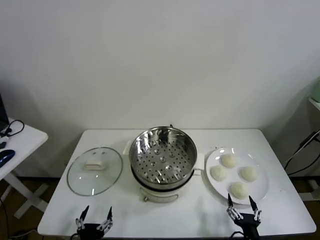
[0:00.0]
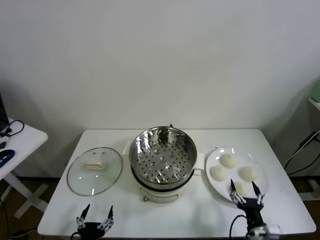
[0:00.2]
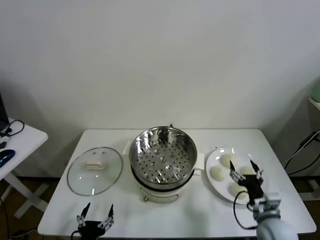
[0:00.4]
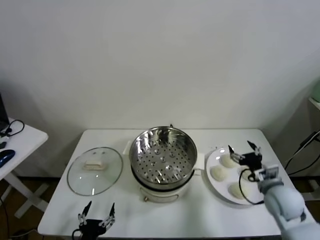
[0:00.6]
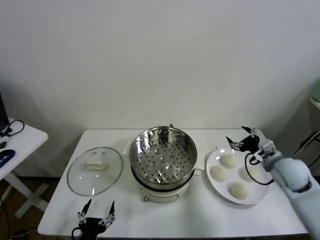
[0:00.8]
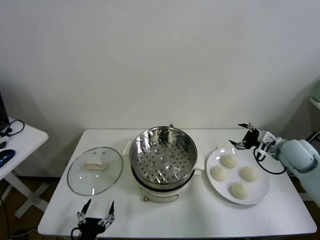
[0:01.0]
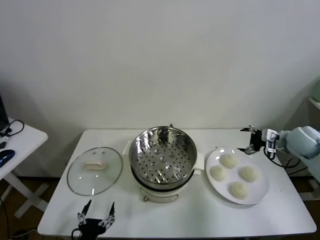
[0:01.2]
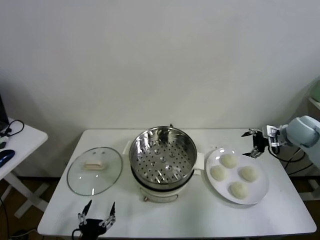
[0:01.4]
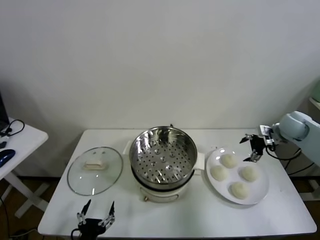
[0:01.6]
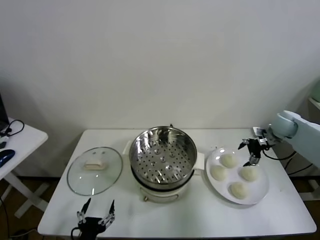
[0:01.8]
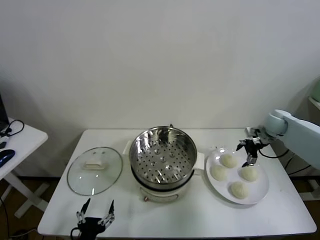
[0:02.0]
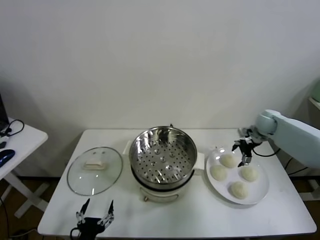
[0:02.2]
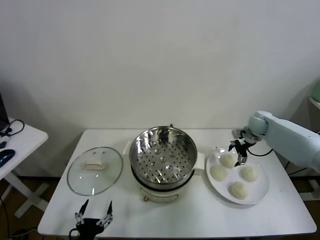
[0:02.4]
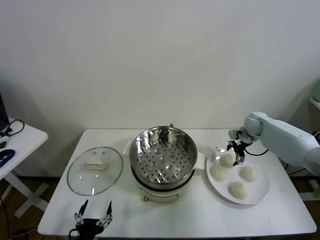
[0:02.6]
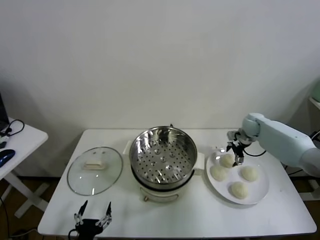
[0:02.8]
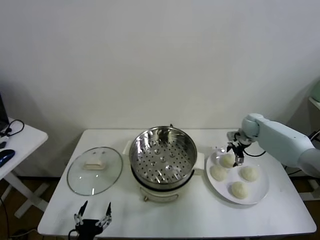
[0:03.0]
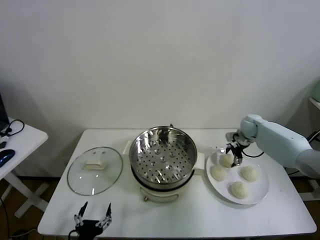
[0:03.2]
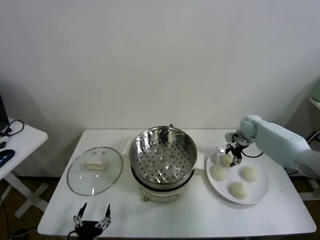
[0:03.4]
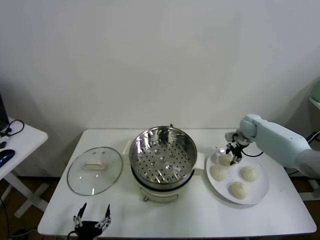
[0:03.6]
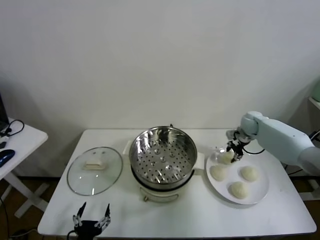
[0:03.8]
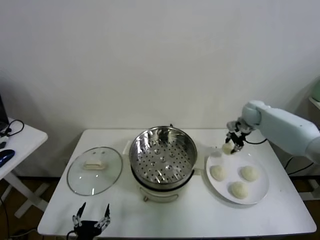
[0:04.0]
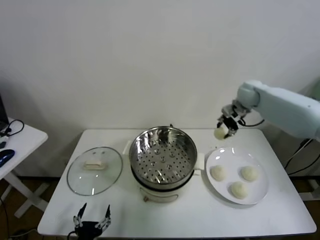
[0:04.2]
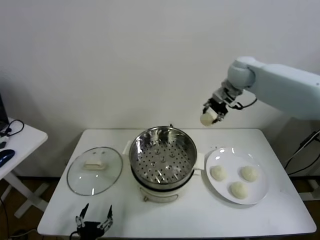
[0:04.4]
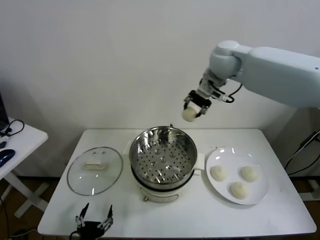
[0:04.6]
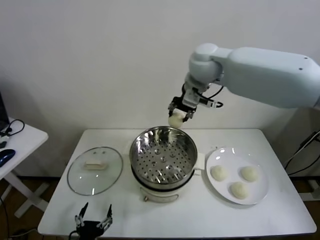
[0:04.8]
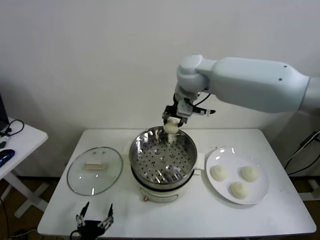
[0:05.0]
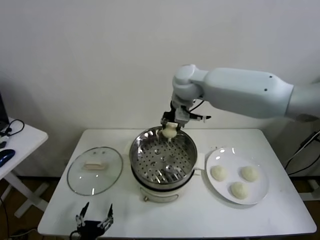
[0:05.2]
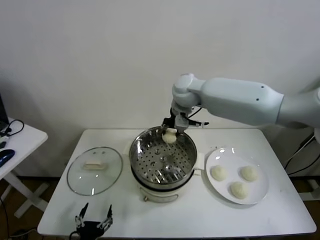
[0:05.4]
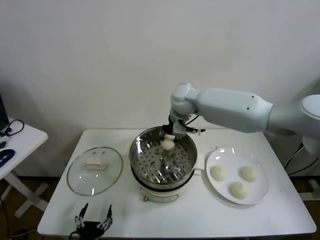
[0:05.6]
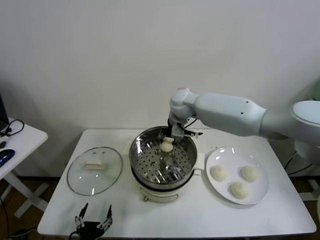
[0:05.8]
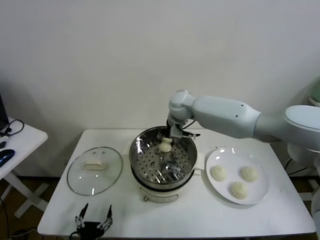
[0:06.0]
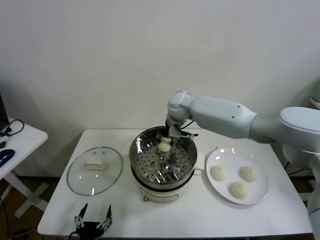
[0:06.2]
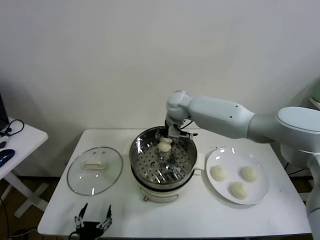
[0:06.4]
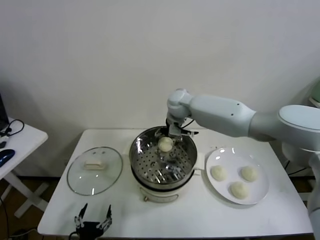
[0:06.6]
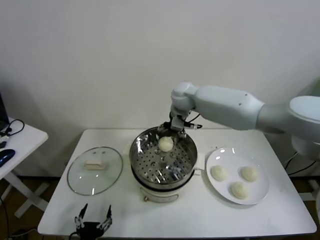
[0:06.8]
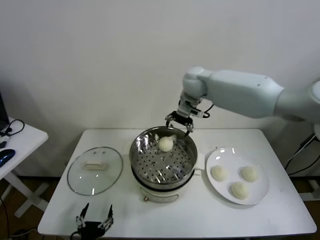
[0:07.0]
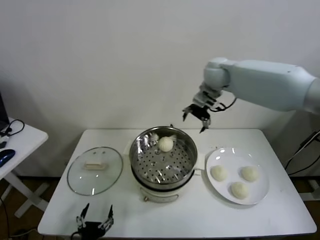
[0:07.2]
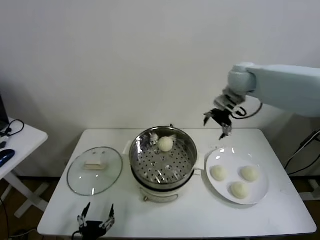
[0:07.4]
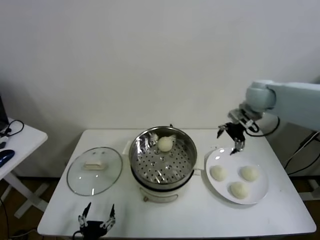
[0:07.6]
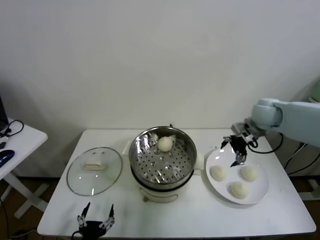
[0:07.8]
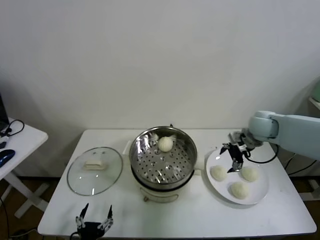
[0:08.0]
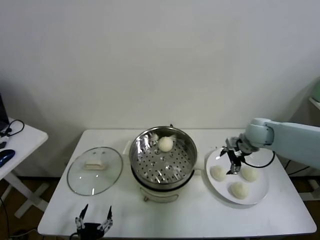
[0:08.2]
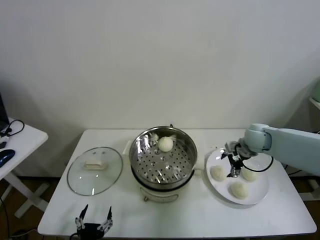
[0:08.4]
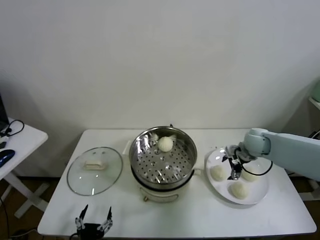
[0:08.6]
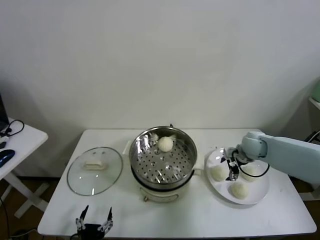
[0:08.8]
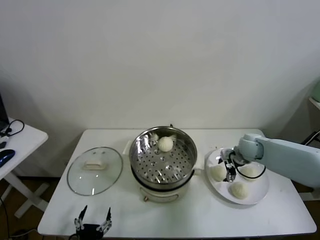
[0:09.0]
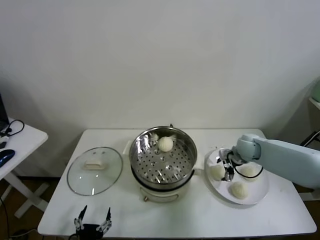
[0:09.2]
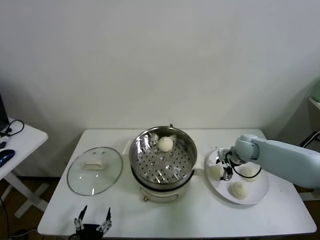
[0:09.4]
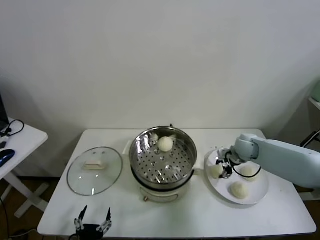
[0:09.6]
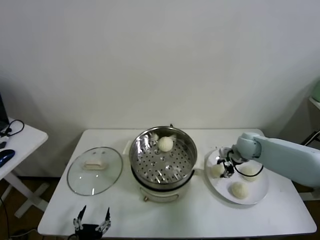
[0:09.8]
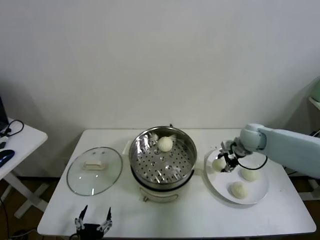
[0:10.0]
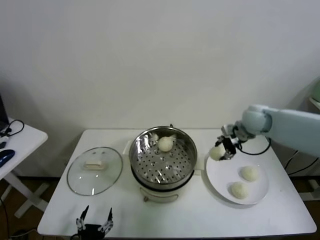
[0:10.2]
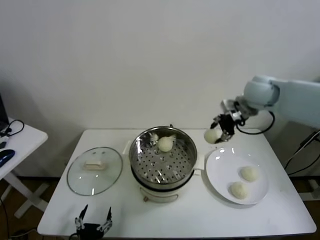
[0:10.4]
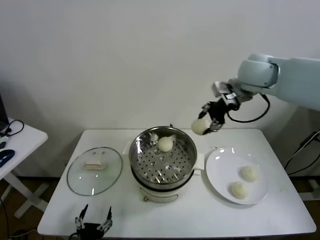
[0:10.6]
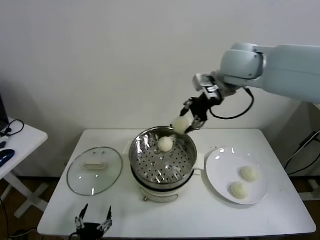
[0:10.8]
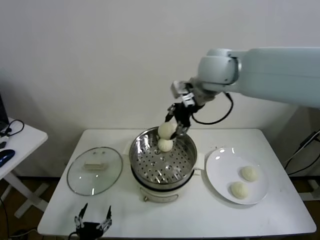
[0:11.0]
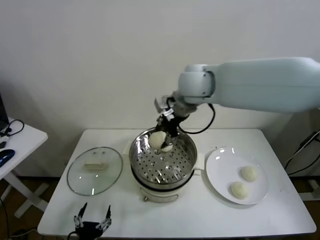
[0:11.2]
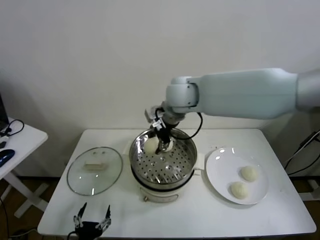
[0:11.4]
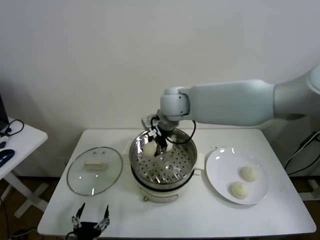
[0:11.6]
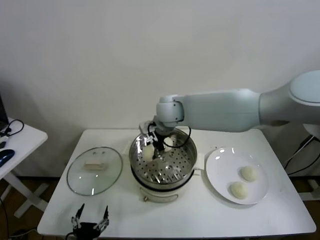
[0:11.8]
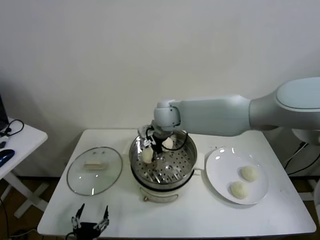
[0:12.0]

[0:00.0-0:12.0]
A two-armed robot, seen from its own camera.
Task of the whole recording: take steamed baozi put them in steamer.
Step, 0:00.0 to 0:03.4: Grasp the baozi in the plate with right gripper.
Step, 0:03.6 to 0:06.8: Place the baozi on the steamer with right gripper.
Step, 0:07.0 to 0:09.6: Grasp the baozi in the plate with right gripper.
0:01.6 to 0:03.0: The right gripper is displaced downward, forward and to the left by roughly 15 cm.
0:03.0 to 0:04.4: The right gripper heads upward and to the left, covering some 35 cm, and closes.
0:04.4 to 0:06.0: The right gripper travels downward and to the left by some 20 cm.
0:06.0 to 0:07.6: The right gripper is displaced to the right by some 25 cm, and opens.
0:07.6 to 0:09.0: The right gripper heads downward, covering some 20 cm.
0:09.0 to 0:10.4: The right gripper travels upward by about 25 cm, and closes.
0:10.4 to 0:12.0: The right gripper heads to the left, covering roughly 25 cm.

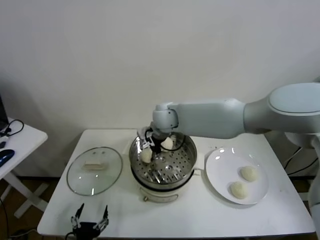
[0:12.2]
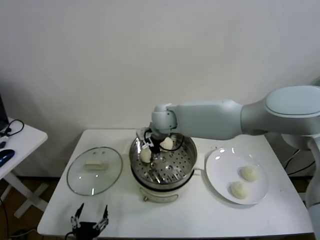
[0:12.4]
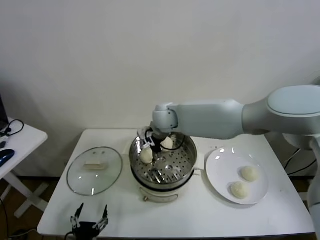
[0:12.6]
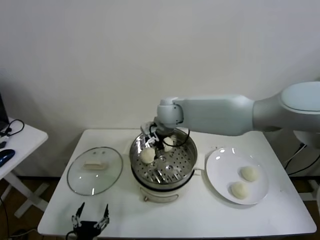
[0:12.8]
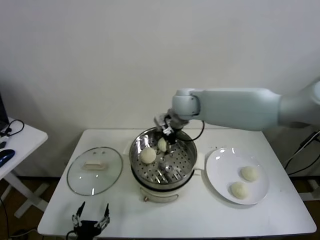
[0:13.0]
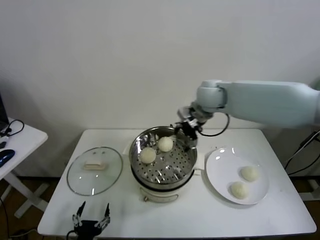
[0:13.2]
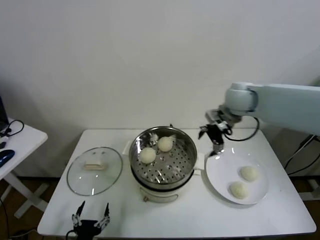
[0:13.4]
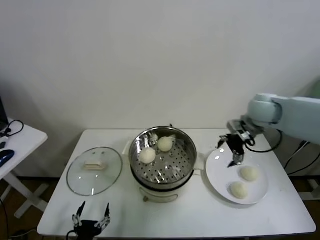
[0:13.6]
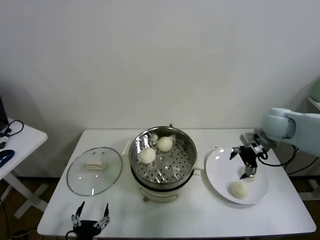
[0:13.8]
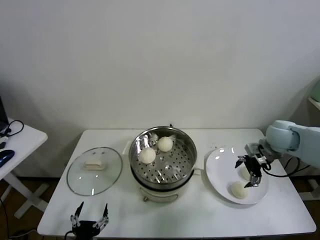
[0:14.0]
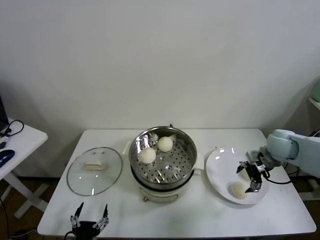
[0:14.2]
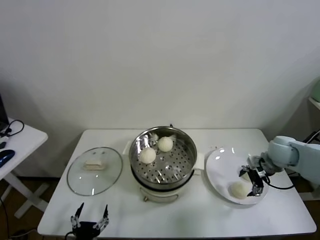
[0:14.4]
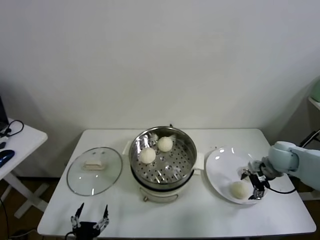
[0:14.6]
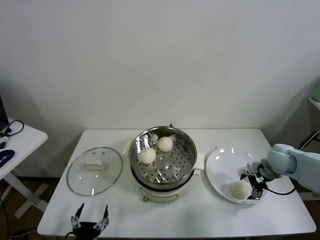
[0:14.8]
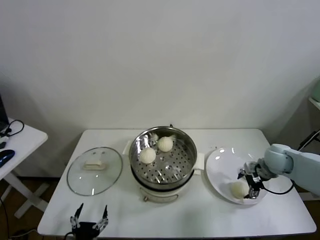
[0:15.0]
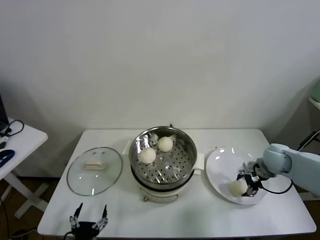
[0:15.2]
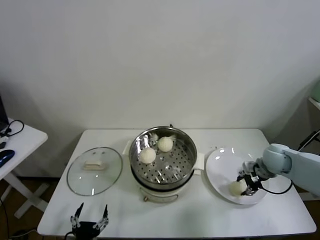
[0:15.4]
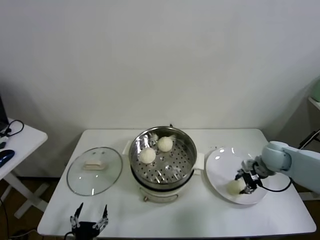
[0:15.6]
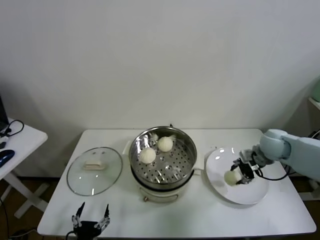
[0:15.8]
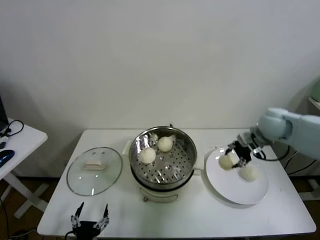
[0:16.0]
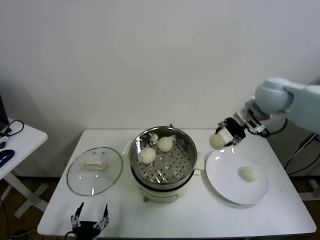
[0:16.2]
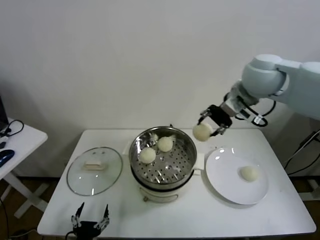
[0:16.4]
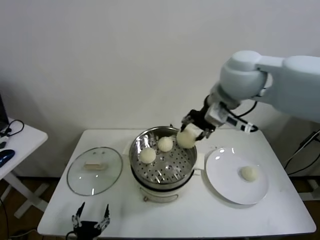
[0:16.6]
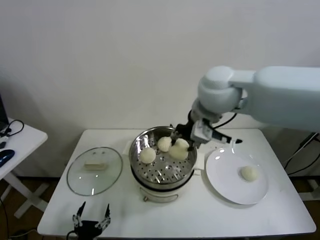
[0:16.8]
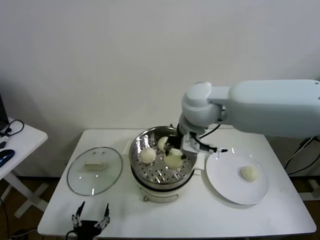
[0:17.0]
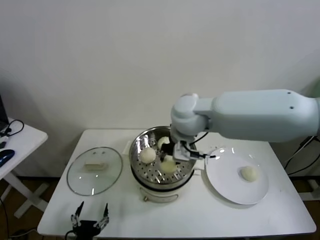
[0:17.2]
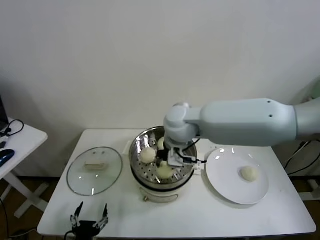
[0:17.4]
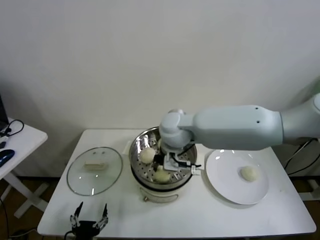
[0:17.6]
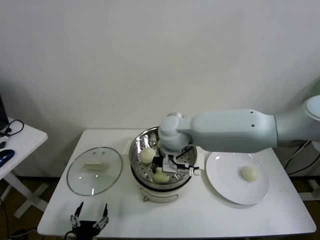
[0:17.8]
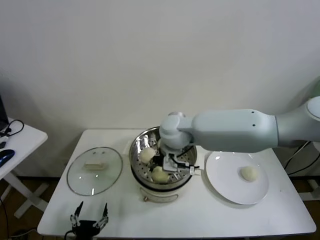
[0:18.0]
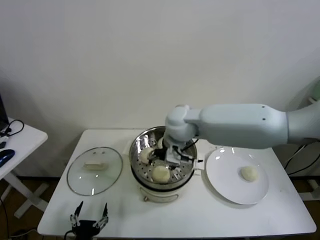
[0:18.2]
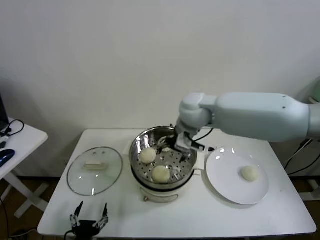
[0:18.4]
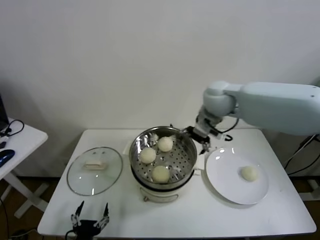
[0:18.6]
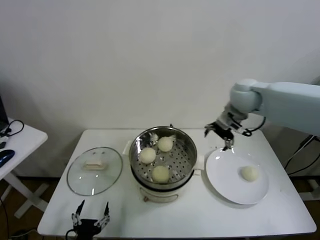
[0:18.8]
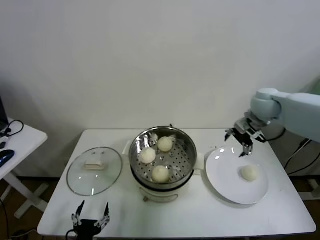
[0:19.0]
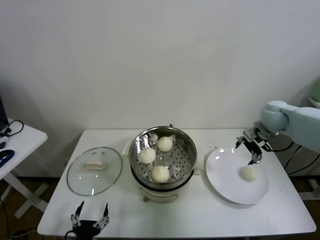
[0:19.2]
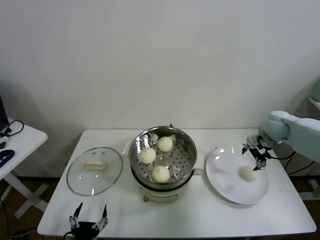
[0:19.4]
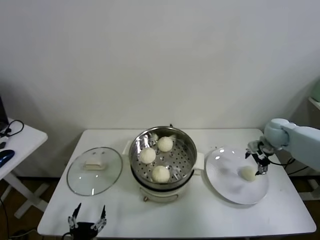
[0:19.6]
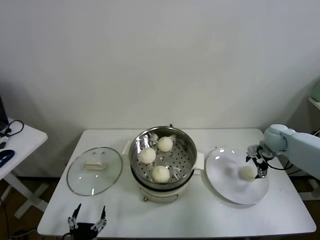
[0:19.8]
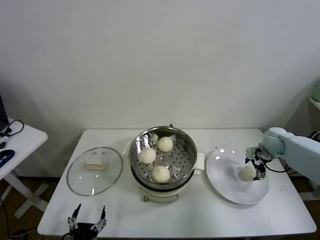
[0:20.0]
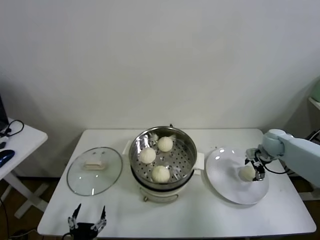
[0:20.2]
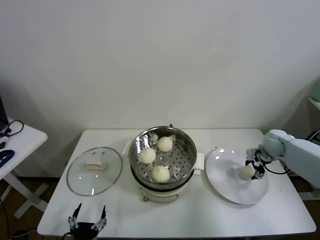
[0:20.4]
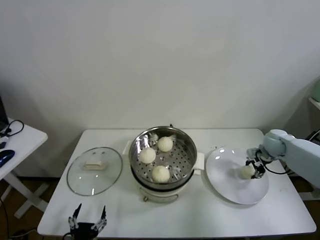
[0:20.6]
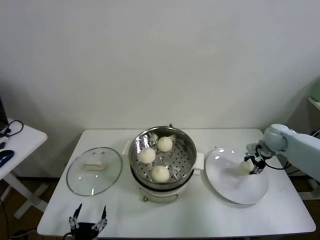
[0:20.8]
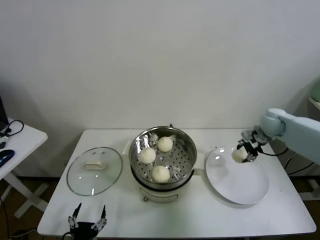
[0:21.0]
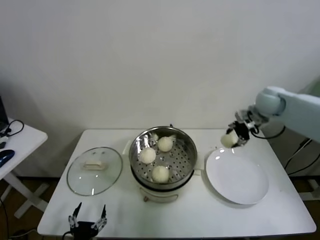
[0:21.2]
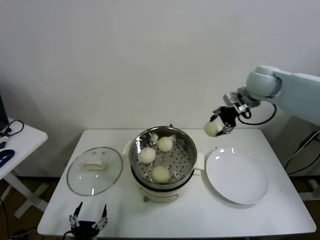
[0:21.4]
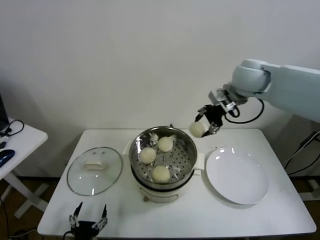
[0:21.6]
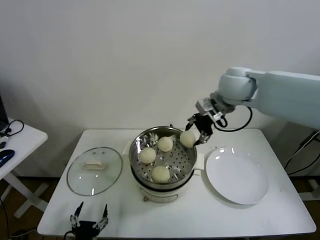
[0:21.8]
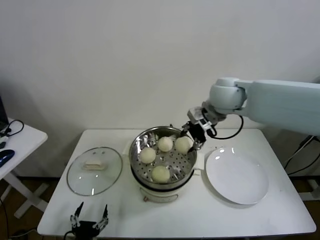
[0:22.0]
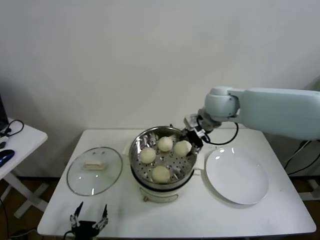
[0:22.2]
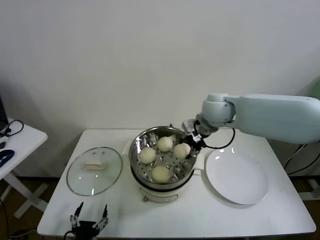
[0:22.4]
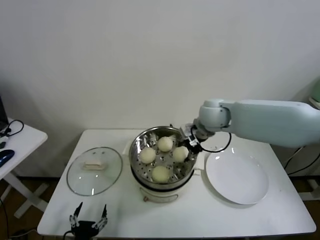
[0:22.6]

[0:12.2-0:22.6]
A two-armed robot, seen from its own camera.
Task of the whole recording: take steamed baozi put them in steamer.
Step, 0:13.0 to 0:15.2: Grasp the baozi in the plate with right gripper.
Step, 0:15.4 to 0:18.0: Place the baozi on the steamer with right gripper.
Step, 0:18.2 to 0:20.4: Grasp the baozi in the plate with right gripper.
0:12.2 to 0:13.6: The right gripper goes about 30 cm to the right, and opens.
0:13.6 to 0:15.2: The right gripper moves downward and to the right, some 20 cm, and closes.
0:15.2 to 0:16.6: The right gripper moves upward and to the left, approximately 40 cm, and closes its fingers.
0:16.6 to 0:18.2: The right gripper heads downward and to the left, covering approximately 20 cm, and opens up.
0:18.2 to 0:19.6: The right gripper shifts about 35 cm to the right.
0:19.6 to 0:21.2: The right gripper travels upward and to the left by about 15 cm, and closes its fingers.
0:21.2 to 0:22.6: The right gripper is displaced to the left by some 20 cm.
